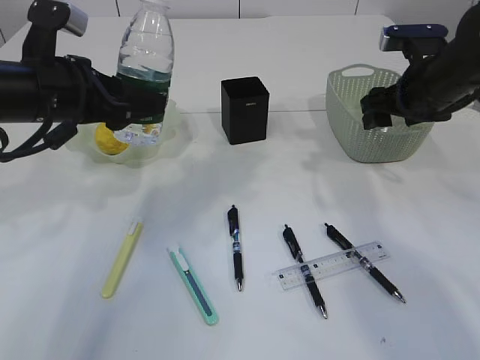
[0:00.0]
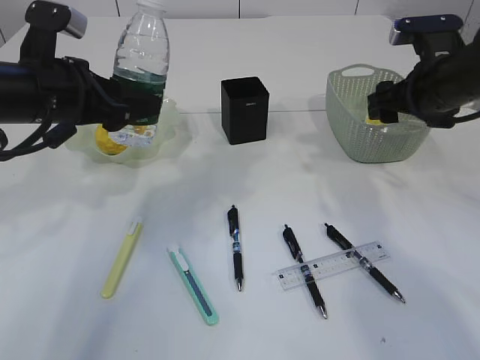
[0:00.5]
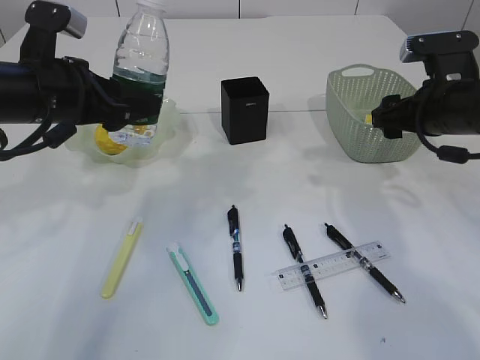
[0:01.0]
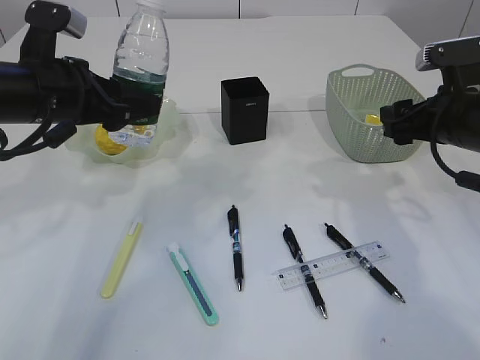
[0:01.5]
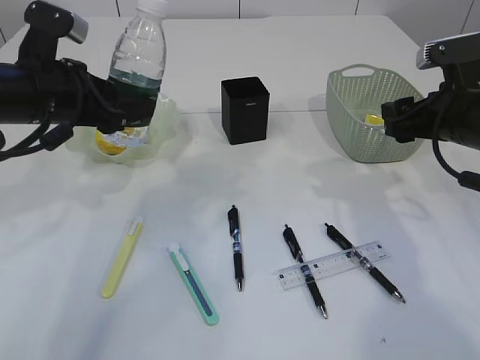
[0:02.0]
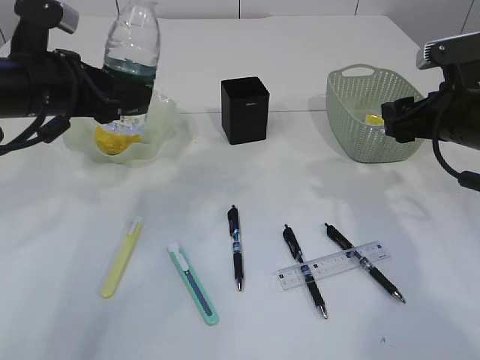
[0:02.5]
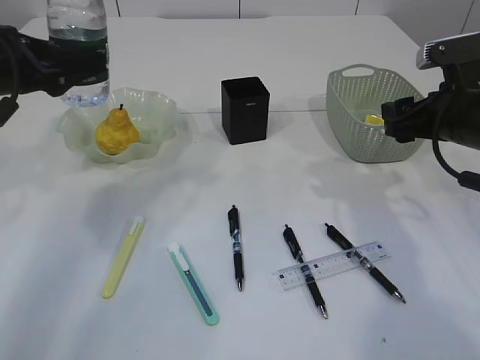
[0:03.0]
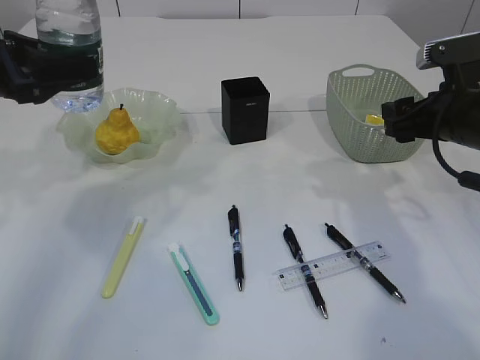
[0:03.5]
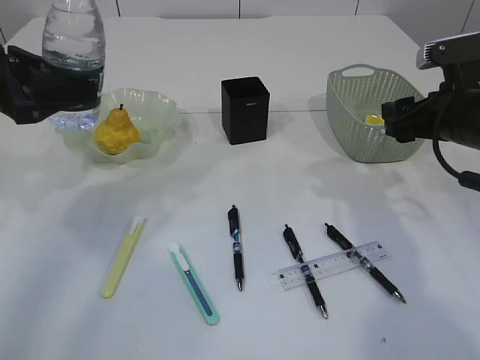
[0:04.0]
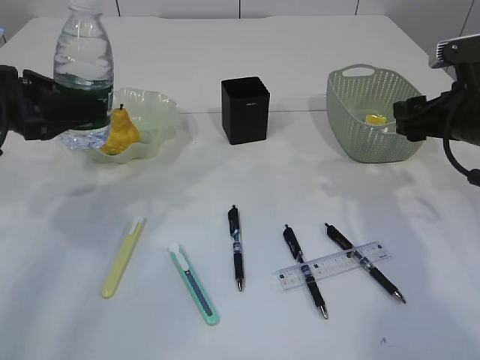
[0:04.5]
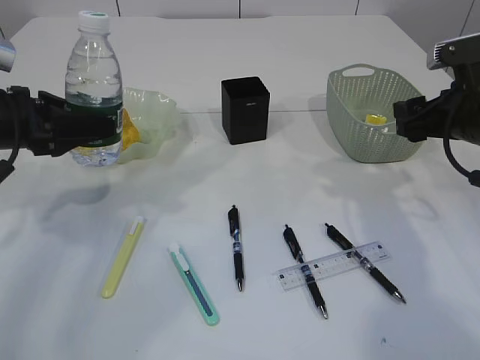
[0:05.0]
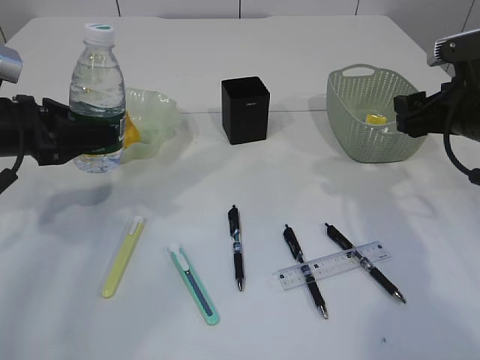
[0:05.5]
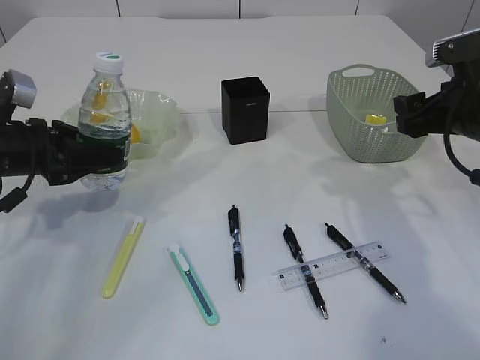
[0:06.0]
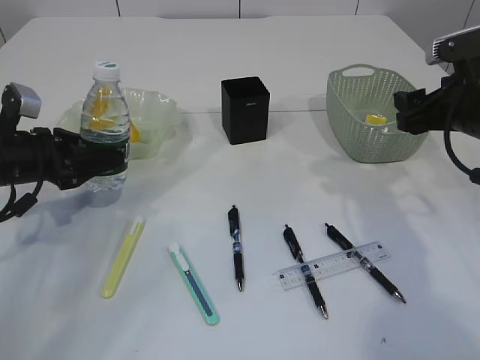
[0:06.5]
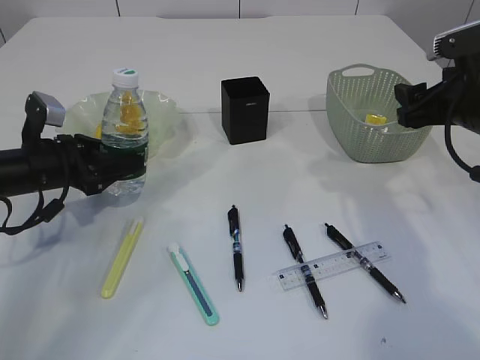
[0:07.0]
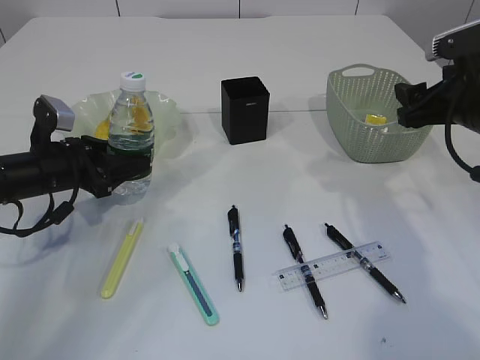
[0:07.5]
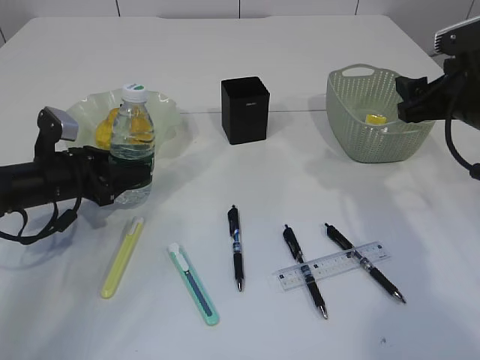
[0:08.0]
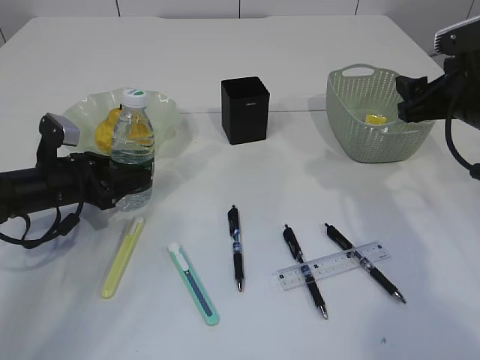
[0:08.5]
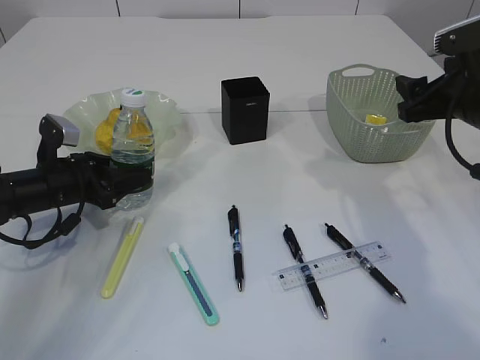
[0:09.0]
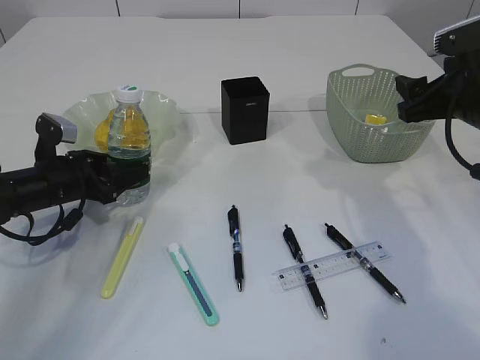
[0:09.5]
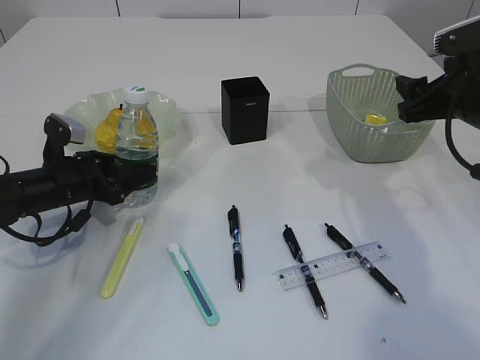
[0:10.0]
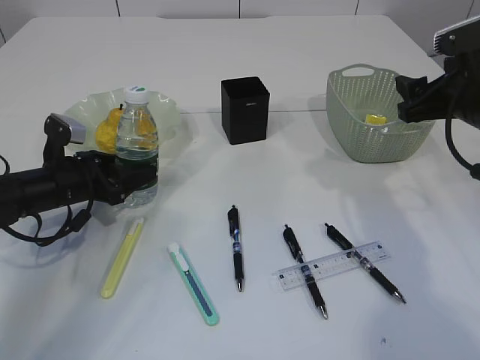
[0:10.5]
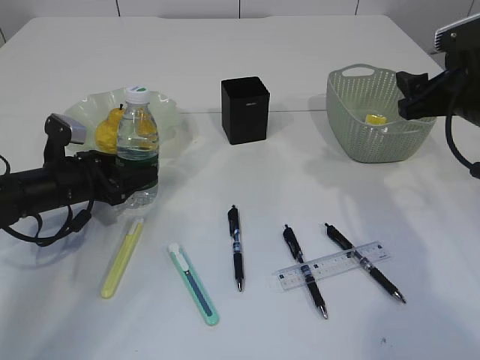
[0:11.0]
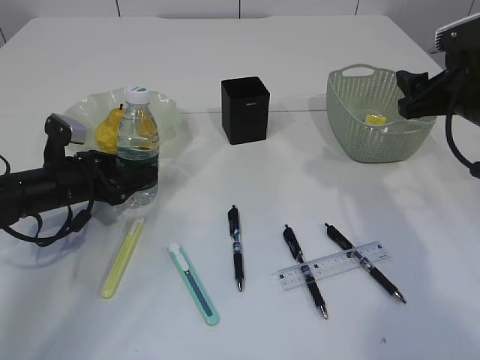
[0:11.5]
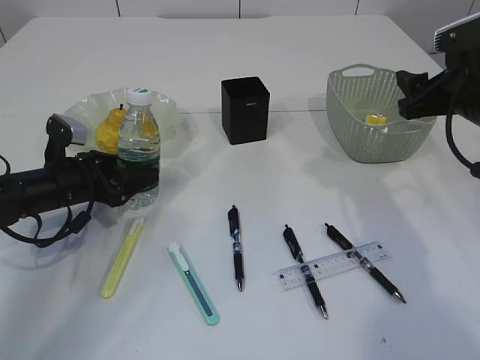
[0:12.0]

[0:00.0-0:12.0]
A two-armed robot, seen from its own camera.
0:00.0 to 0:02.0: The right gripper goes some 10 cm backward.
0:02.0 to 0:04.0: The left gripper heads to the left, covering roughly 10 cm.
0:04.0 to 0:06.0: The left gripper heads downward, covering approximately 10 cm.
0:06.0 to 0:08.0: The left gripper goes about 5 cm downward.
0:08.0 to 0:10.0: There are only small adjustments of the grippers.
0:10.0 to 0:12.0: Neither gripper changes place.

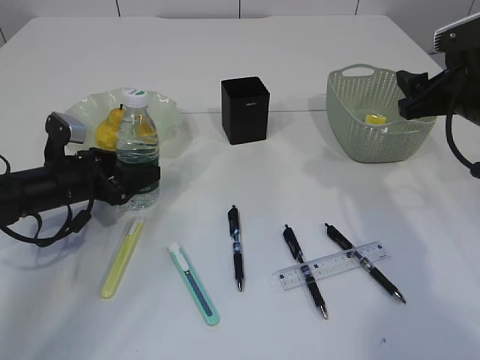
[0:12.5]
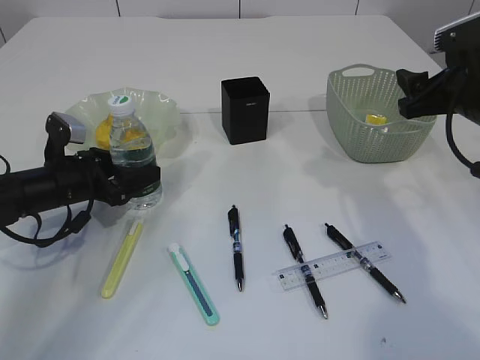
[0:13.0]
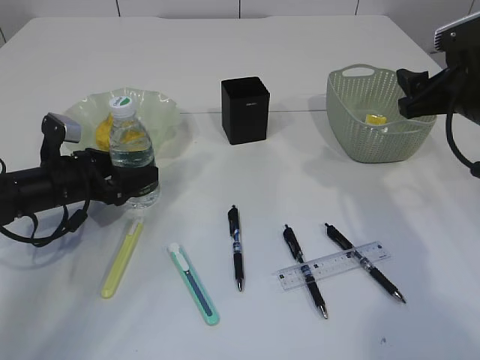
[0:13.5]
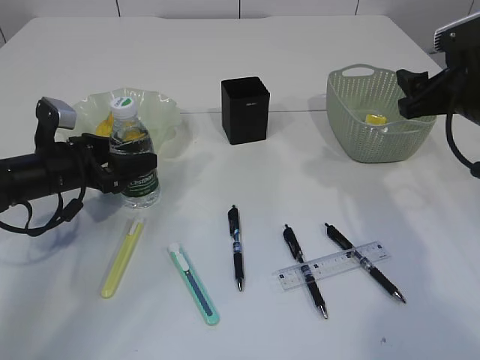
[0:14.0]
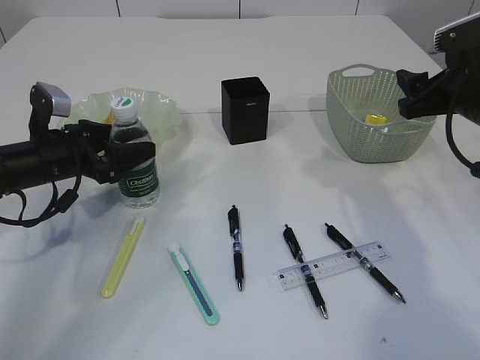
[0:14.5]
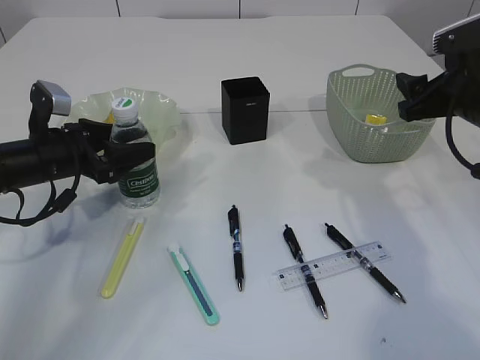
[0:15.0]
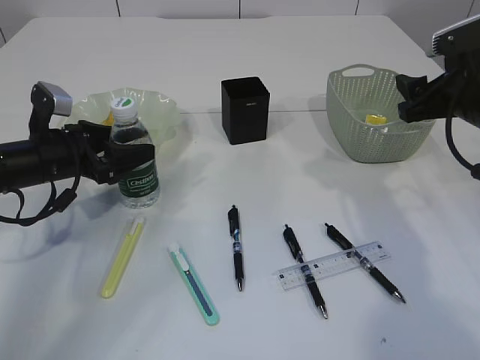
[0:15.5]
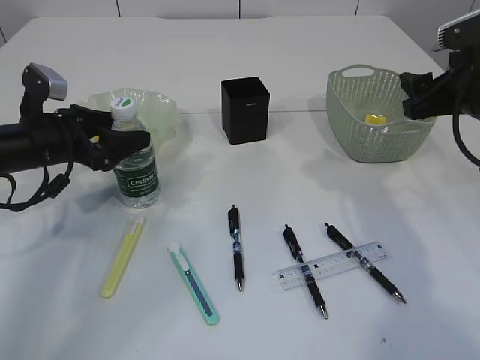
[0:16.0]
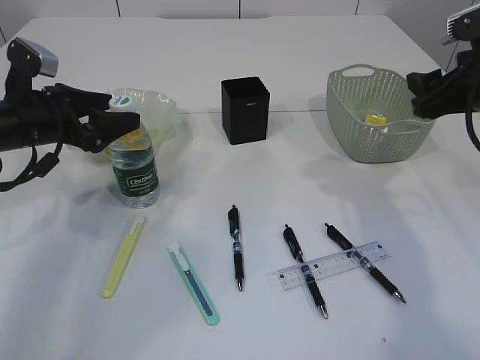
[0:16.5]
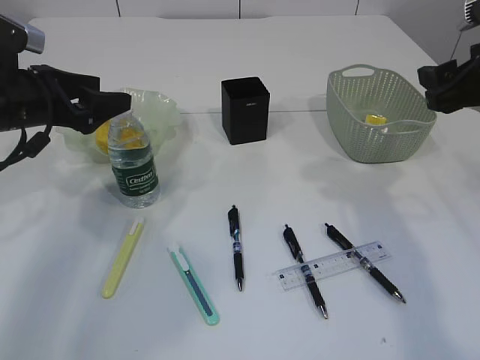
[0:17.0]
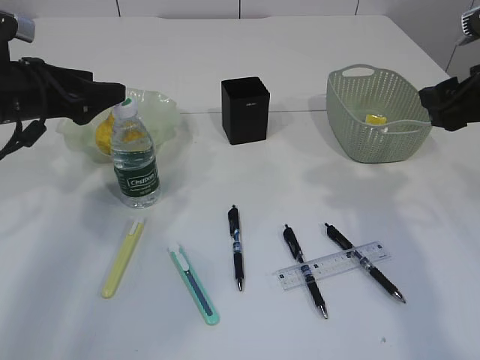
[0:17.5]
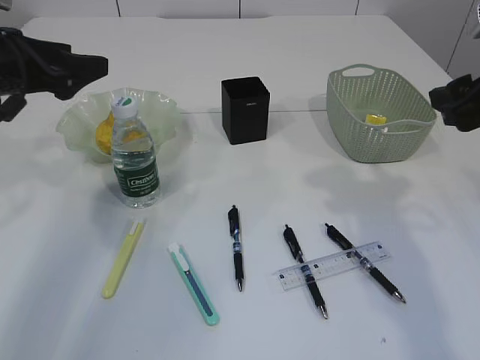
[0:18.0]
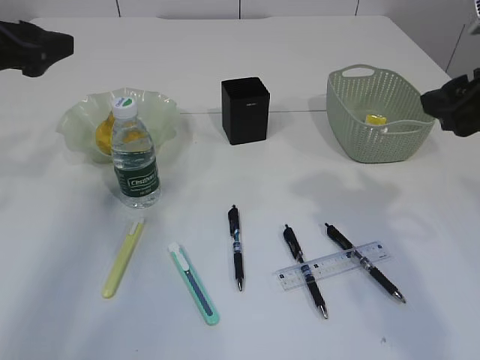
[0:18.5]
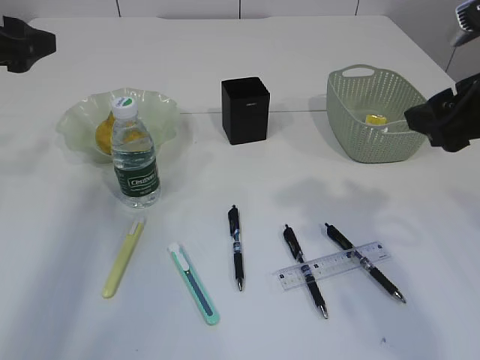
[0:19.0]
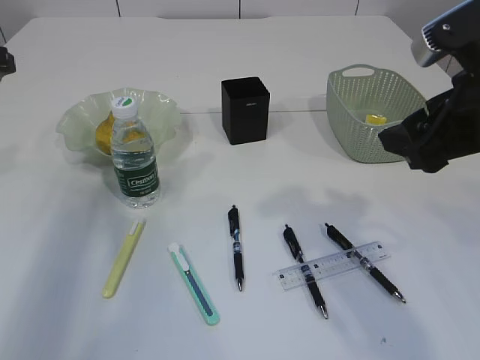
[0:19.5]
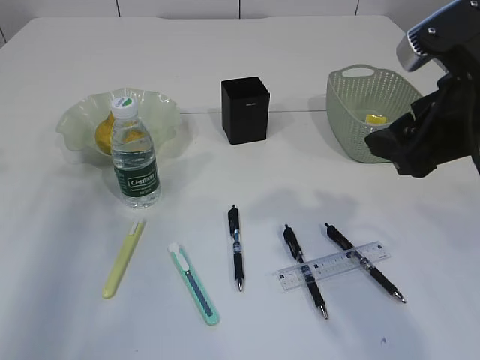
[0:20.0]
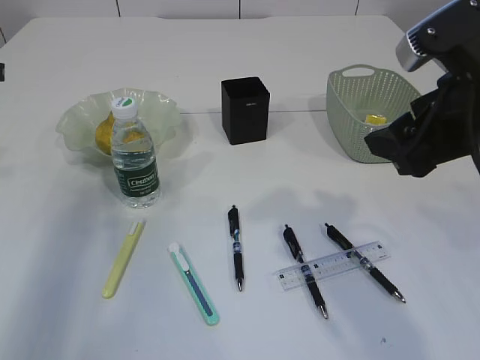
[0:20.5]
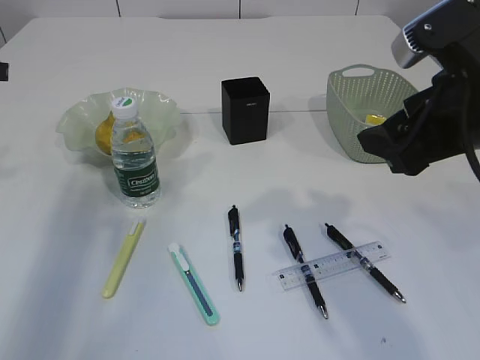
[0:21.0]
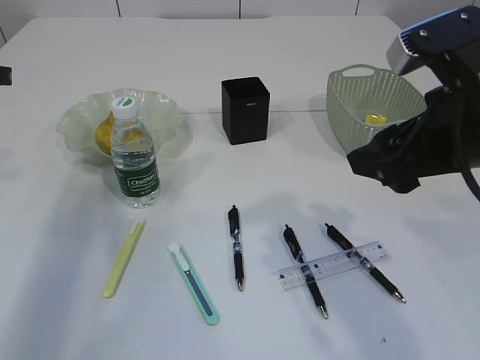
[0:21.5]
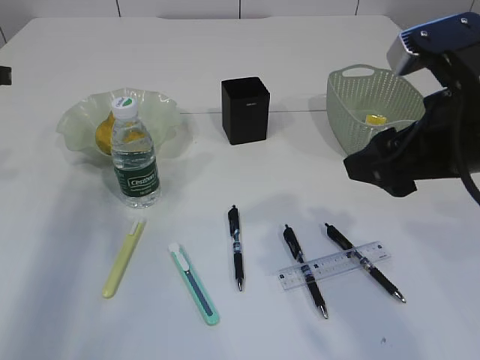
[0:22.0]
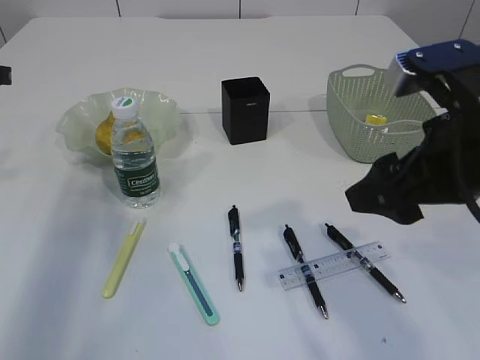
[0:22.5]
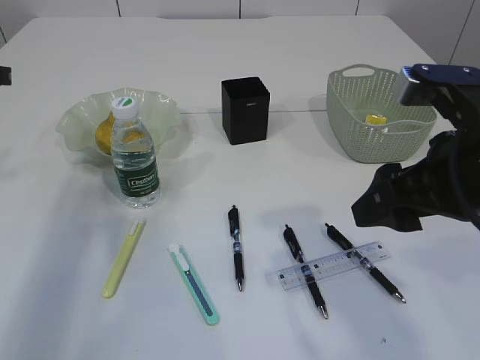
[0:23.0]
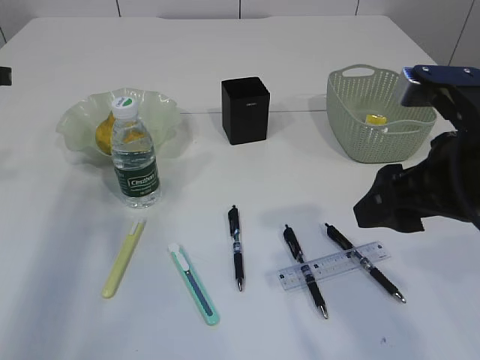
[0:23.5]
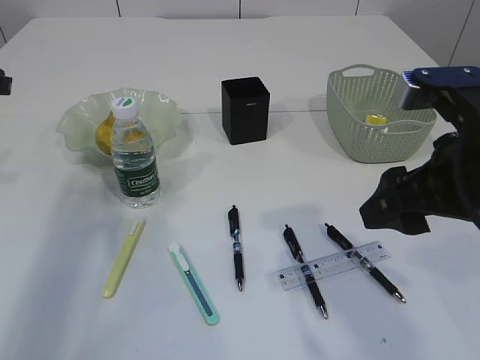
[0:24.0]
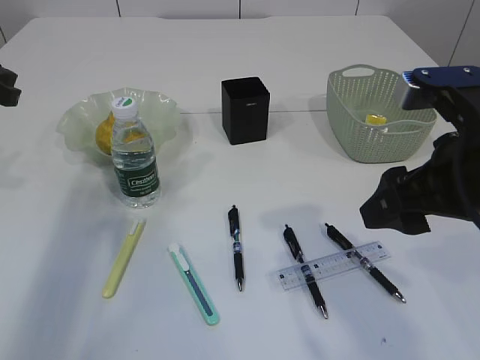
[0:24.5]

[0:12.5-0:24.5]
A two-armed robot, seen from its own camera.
Step, 0:12.5 to 0:18.5: Place the bottle.
0:12.5 to 0:14.5: There are only small adjustments of the grippers.
0:14.5 to 0:16.5: The left gripper is displaced upward by approximately 5 cm.
0:16.5 to 0:18.5: The right gripper moves backward, some 5 cm, while the left gripper heads upward, covering approximately 10 cm.
0:18.5 to 0:20.5: The left gripper closes up, while the right gripper travels to the left by approximately 5 cm.
0:22.5 to 0:24.5: The grippers move only a little.

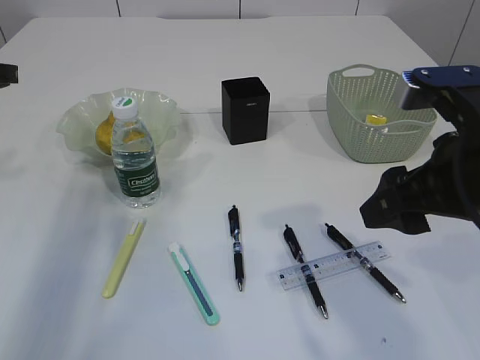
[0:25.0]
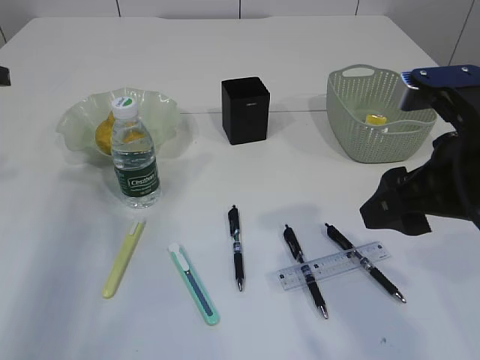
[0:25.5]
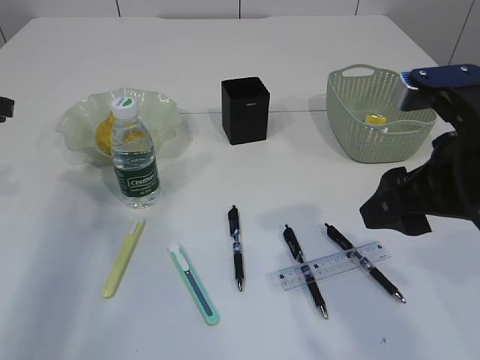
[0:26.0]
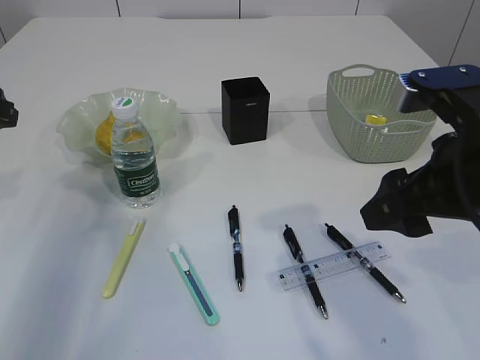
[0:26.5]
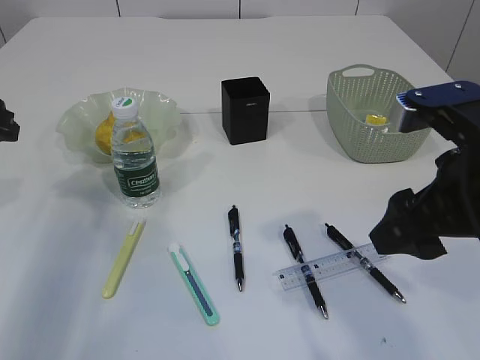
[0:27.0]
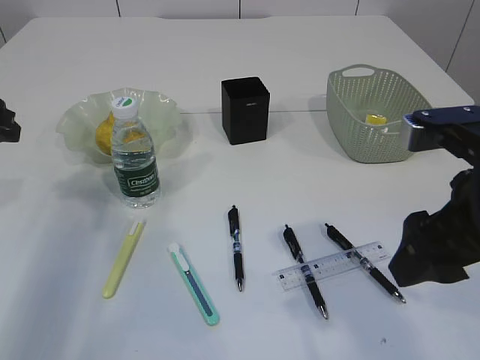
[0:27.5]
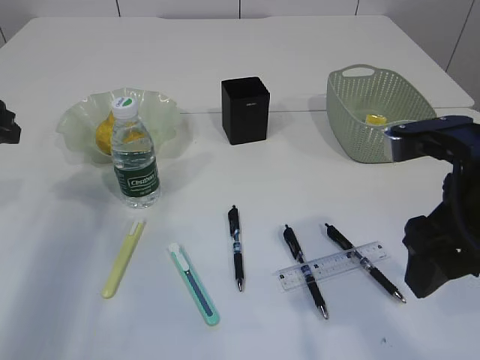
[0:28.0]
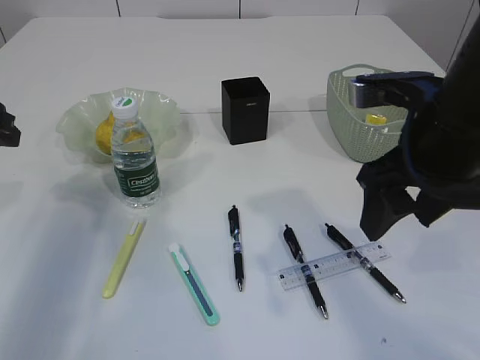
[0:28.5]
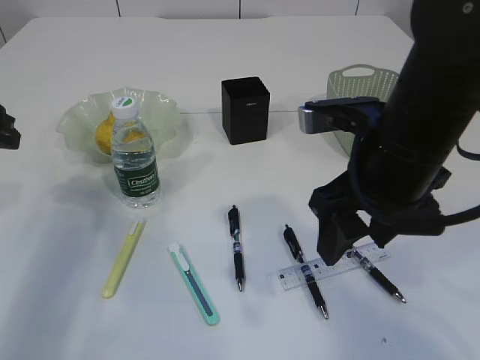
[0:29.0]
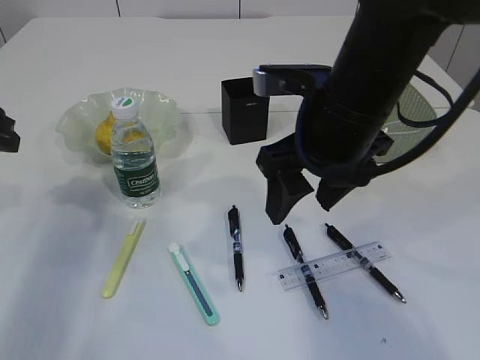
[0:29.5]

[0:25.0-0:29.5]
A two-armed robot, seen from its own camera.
0:25.0 to 0:27.0: The left gripper opens up.
0:27.0 to 0:29.5: The right gripper moves to the left and forward, some 10 cm.
